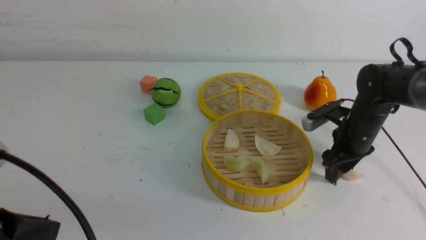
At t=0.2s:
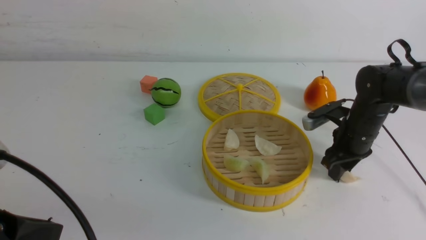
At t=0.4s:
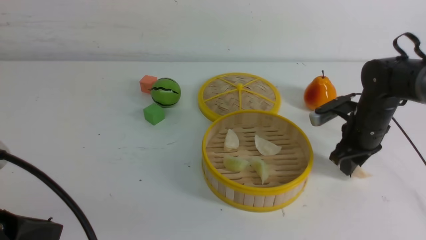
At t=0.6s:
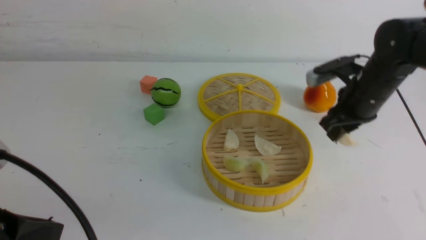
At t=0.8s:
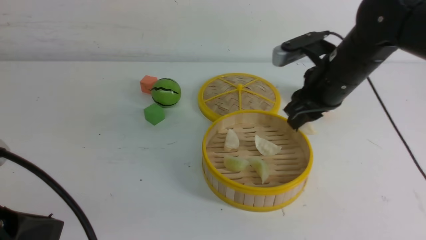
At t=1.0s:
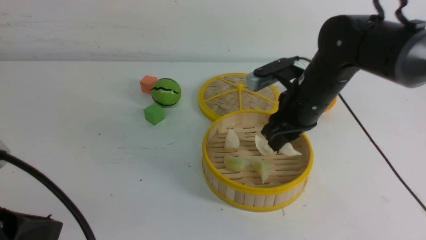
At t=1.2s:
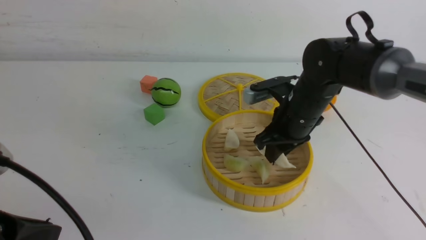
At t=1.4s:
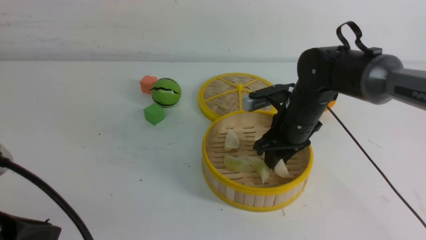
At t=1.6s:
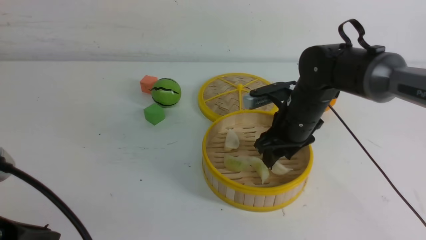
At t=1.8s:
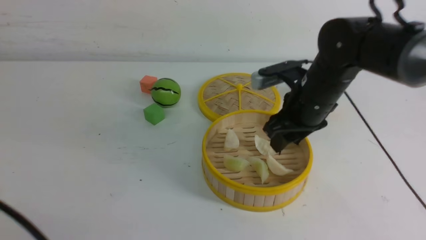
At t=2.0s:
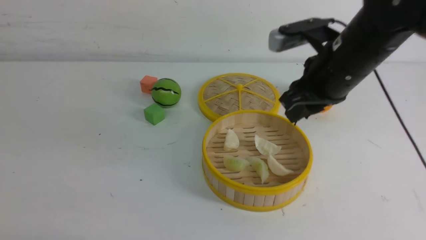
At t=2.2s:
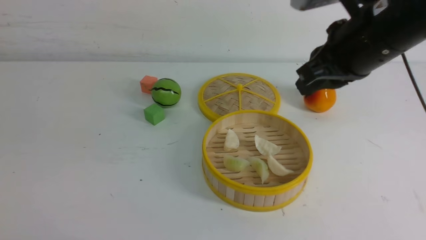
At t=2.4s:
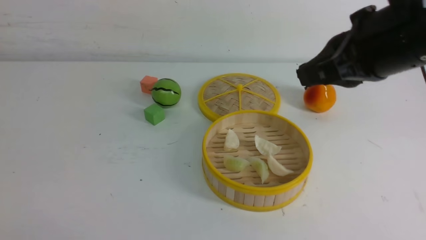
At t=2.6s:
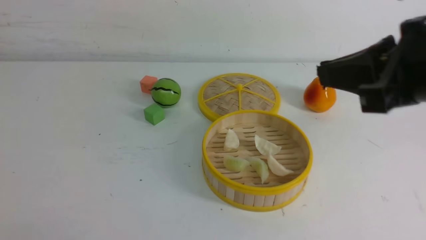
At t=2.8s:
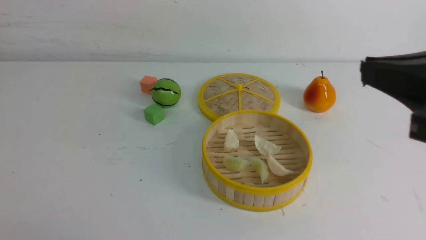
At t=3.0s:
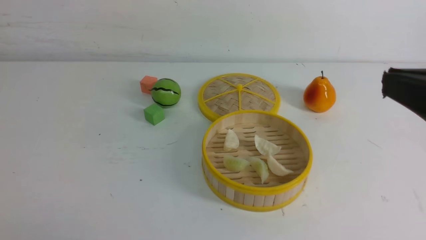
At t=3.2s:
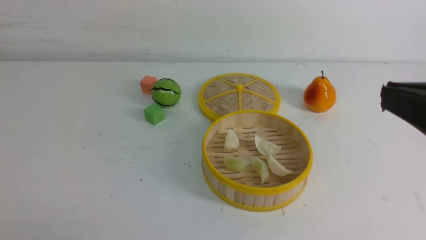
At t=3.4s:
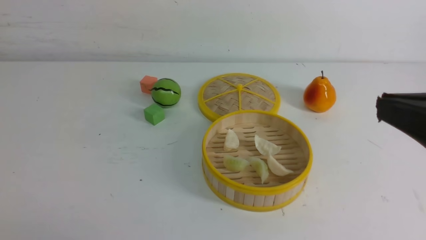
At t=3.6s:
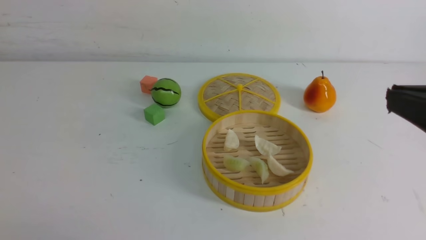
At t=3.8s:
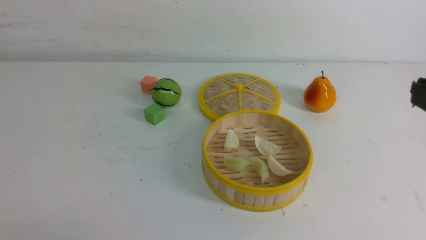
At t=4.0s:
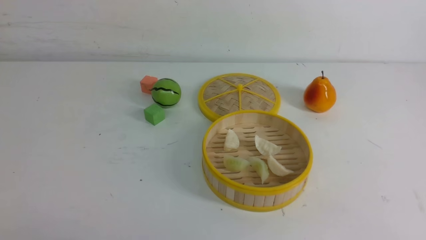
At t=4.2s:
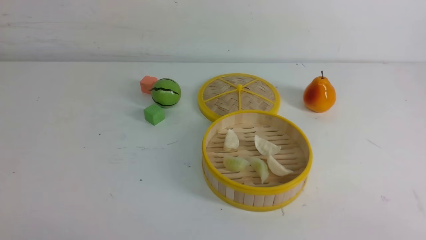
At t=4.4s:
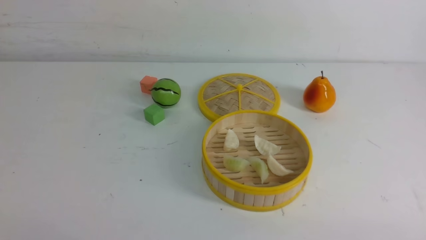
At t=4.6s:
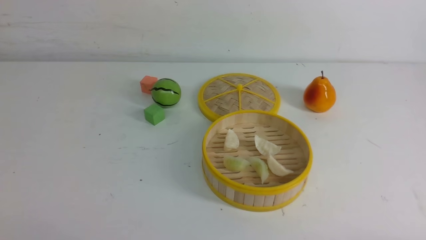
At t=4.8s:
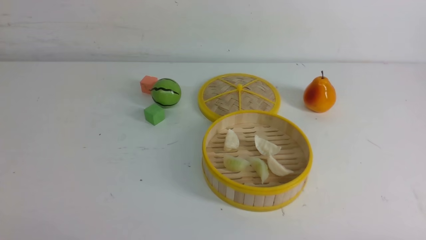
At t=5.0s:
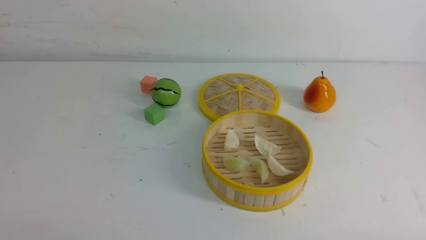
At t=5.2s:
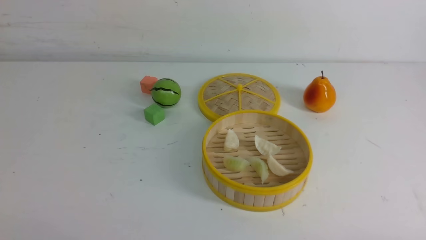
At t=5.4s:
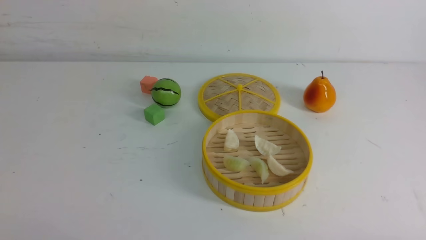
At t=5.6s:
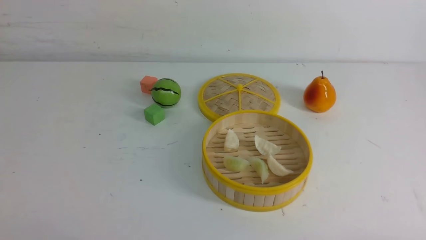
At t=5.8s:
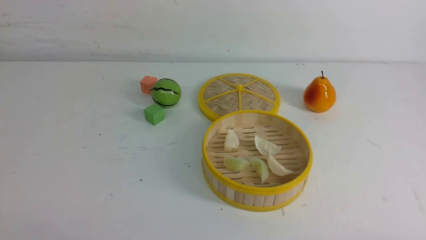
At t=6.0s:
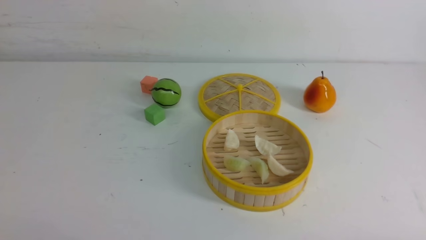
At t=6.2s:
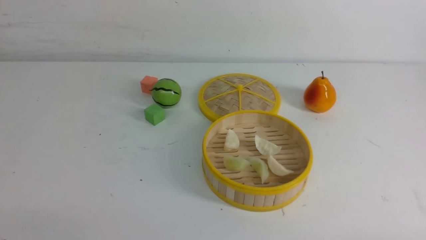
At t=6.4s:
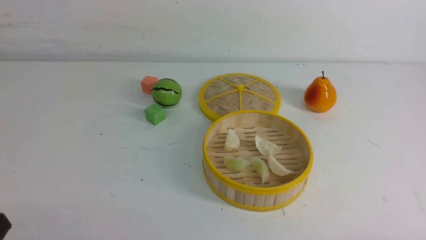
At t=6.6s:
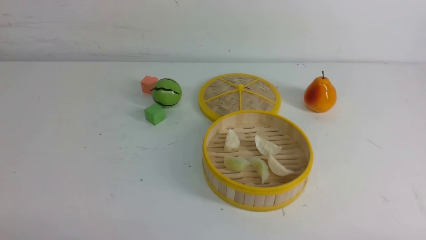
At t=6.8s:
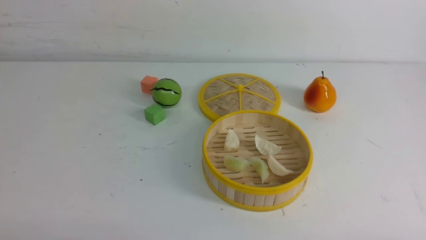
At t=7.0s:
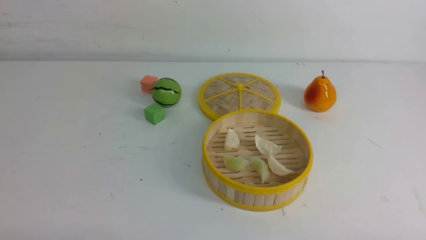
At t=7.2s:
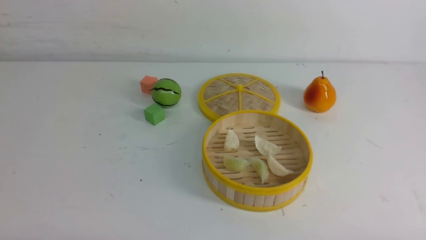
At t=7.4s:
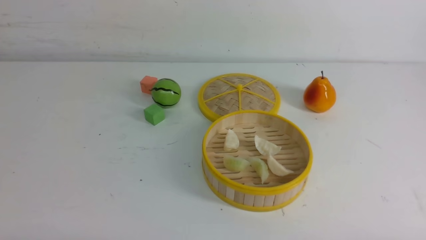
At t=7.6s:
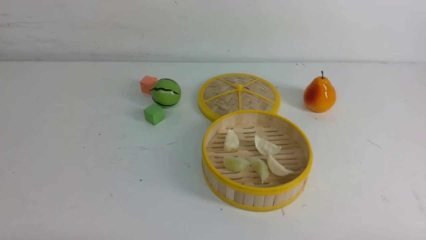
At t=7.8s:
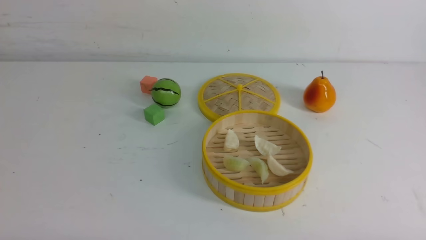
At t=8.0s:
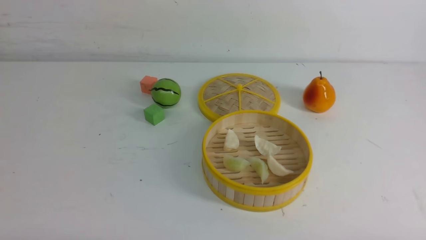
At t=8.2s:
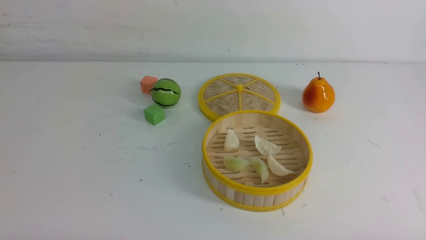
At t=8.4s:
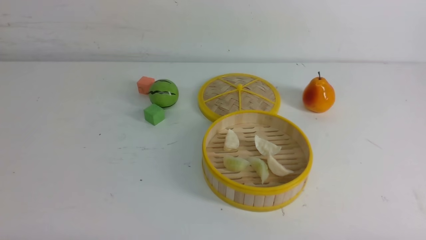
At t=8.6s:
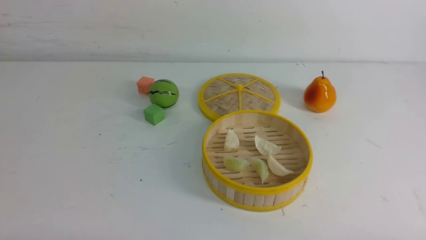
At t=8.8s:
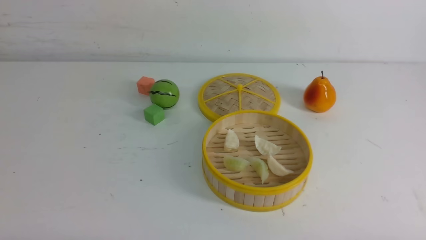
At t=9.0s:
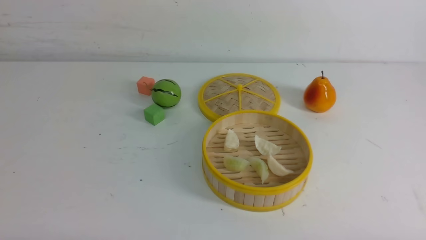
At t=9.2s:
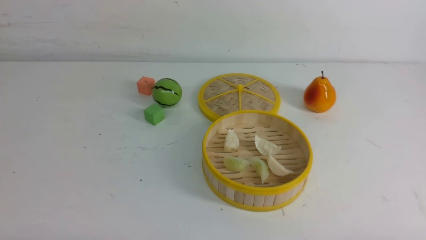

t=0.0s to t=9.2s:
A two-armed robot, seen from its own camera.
Task of the whole recording: put the dumplings into the steamer on the white table.
Step, t=0.6s to t=1.6s: use the right arm to put the dumpling into the steamer.
t=0.0s to t=1.6s: The right gripper travels to the left and upward by approximately 15 cm.
t=1.6s to t=3.0s: The right gripper heads backward and upward, covering about 30 cm, and closes its fingers, while the left gripper shifts roughly 10 cm backward and to the left.
t=3.0s to t=4.6s: The right gripper moves downward, some 20 cm.
t=7.6s to t=9.2s: Neither gripper changes place.
